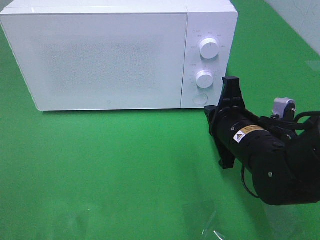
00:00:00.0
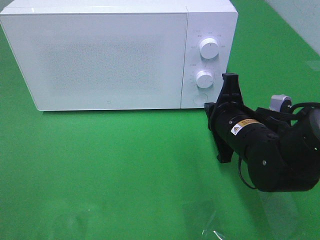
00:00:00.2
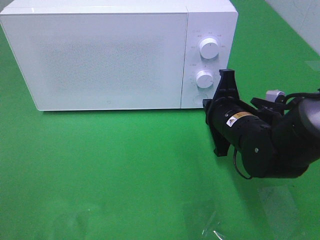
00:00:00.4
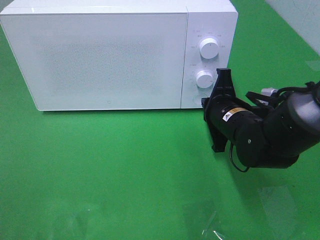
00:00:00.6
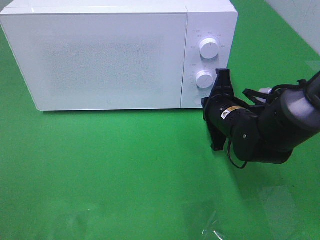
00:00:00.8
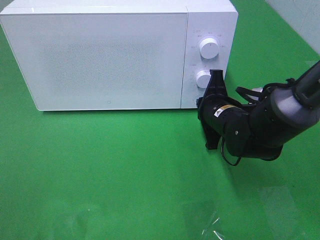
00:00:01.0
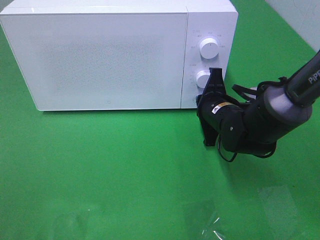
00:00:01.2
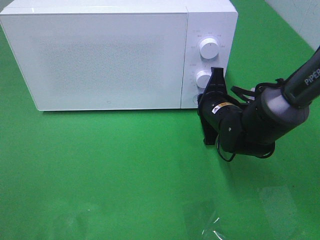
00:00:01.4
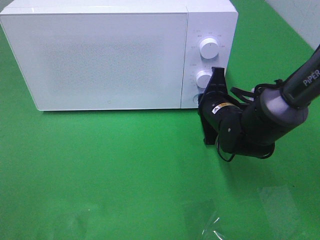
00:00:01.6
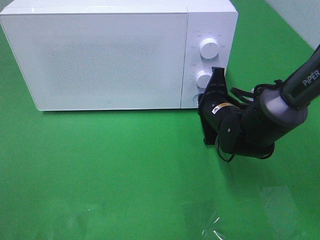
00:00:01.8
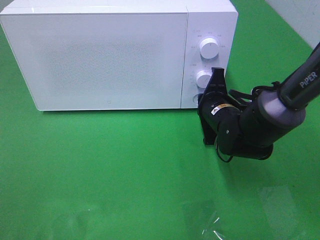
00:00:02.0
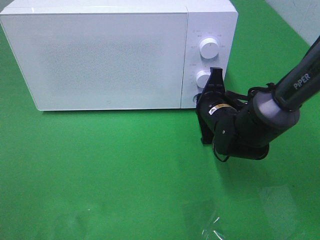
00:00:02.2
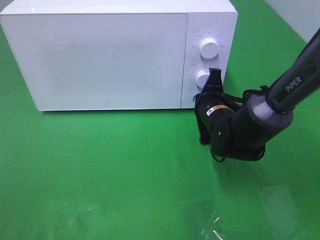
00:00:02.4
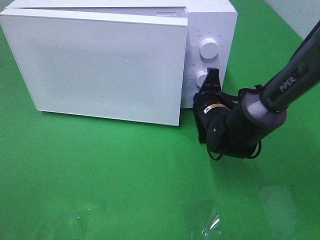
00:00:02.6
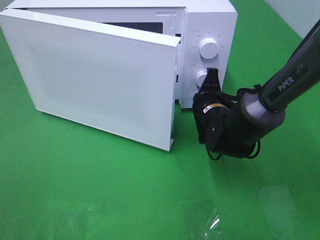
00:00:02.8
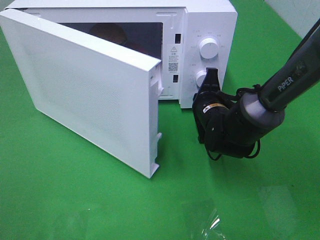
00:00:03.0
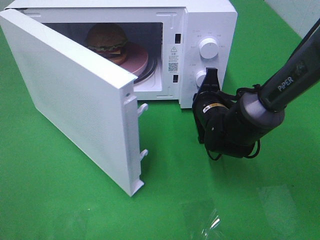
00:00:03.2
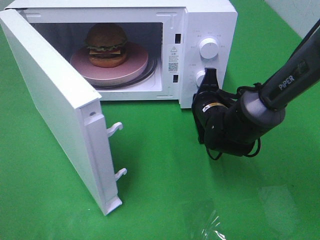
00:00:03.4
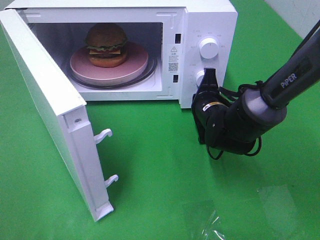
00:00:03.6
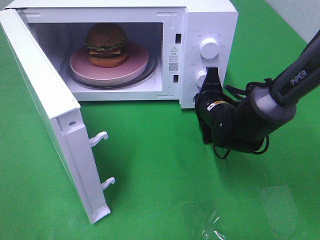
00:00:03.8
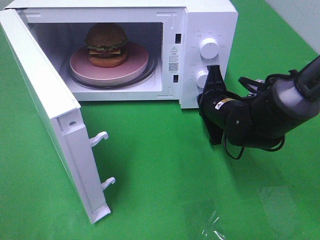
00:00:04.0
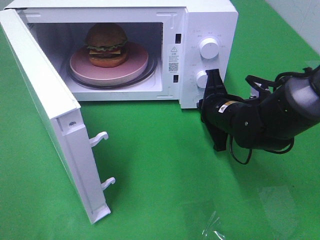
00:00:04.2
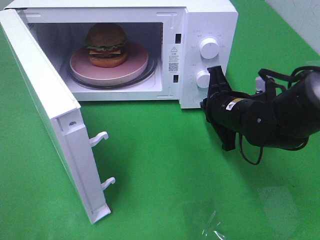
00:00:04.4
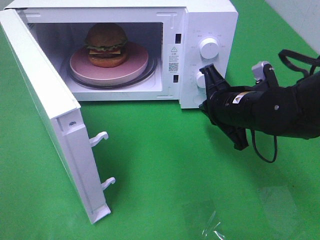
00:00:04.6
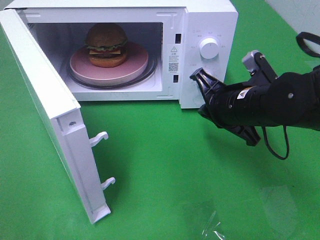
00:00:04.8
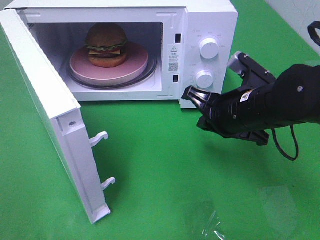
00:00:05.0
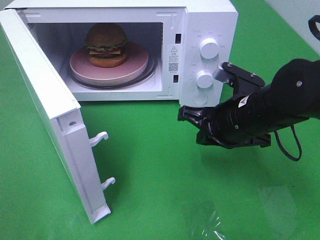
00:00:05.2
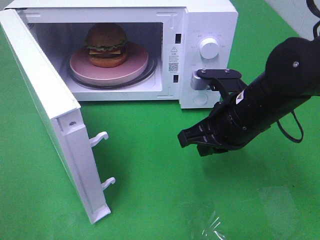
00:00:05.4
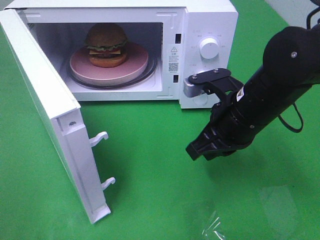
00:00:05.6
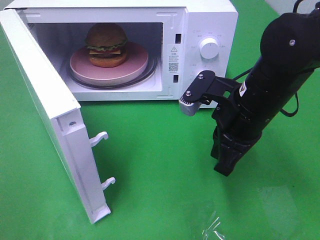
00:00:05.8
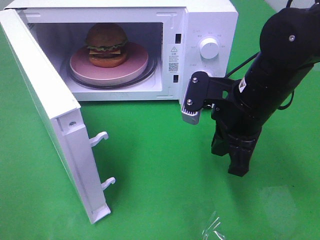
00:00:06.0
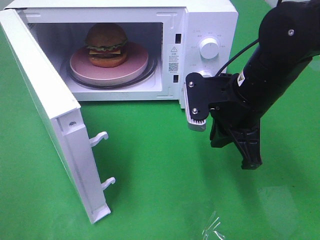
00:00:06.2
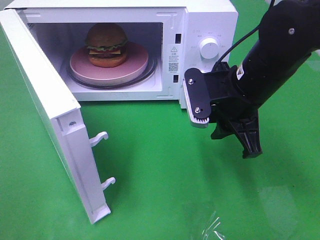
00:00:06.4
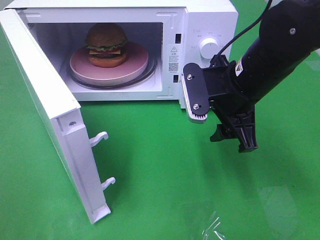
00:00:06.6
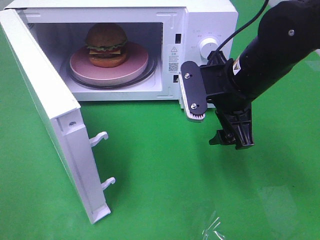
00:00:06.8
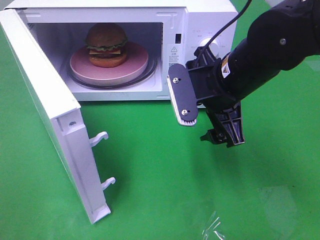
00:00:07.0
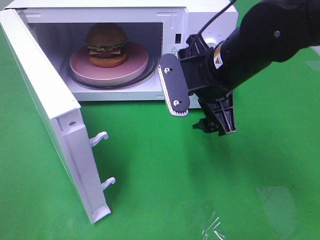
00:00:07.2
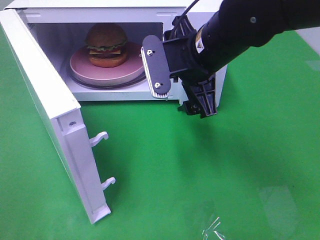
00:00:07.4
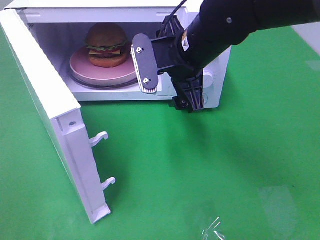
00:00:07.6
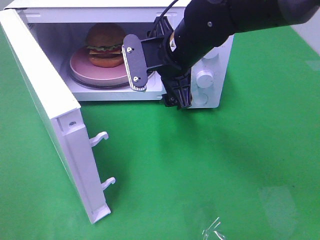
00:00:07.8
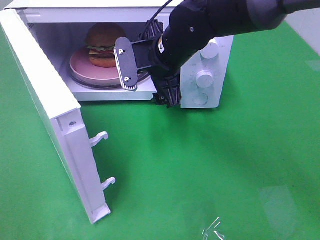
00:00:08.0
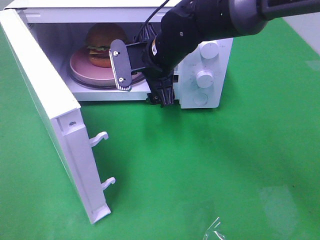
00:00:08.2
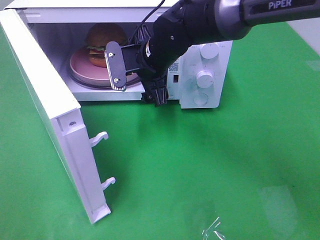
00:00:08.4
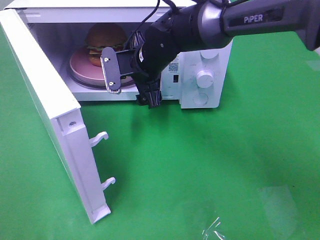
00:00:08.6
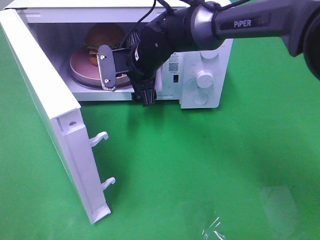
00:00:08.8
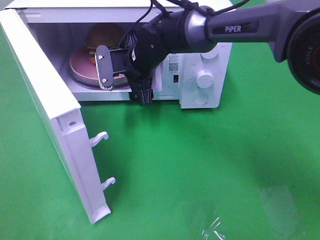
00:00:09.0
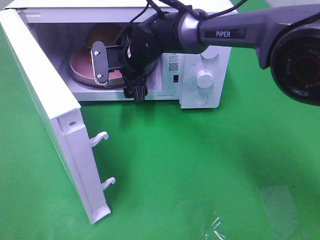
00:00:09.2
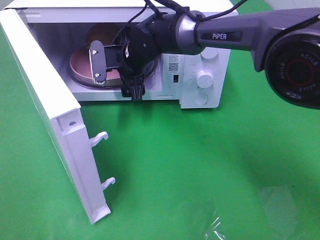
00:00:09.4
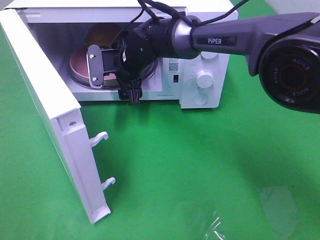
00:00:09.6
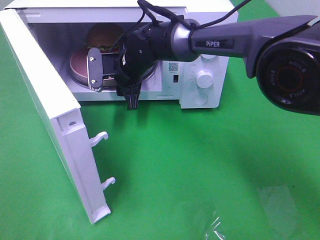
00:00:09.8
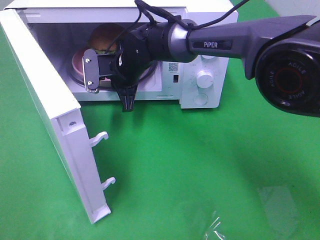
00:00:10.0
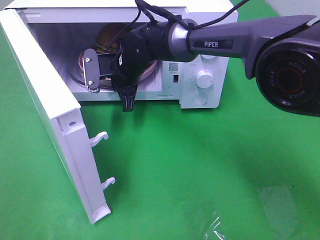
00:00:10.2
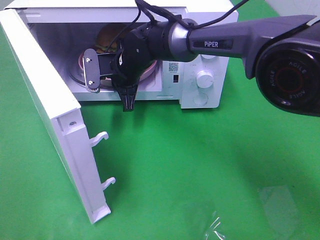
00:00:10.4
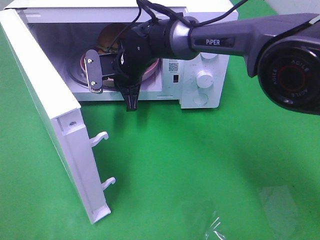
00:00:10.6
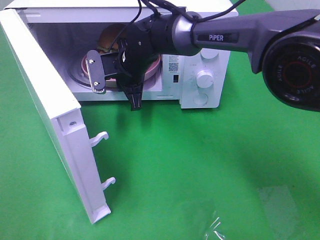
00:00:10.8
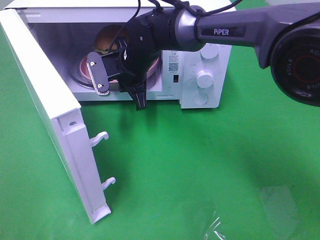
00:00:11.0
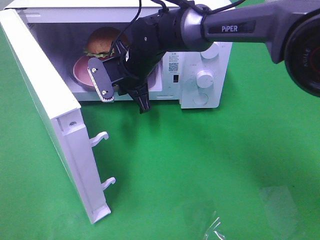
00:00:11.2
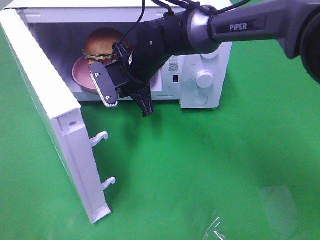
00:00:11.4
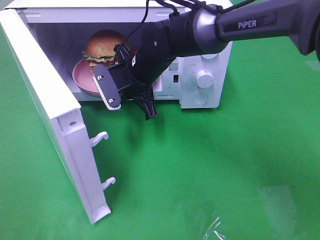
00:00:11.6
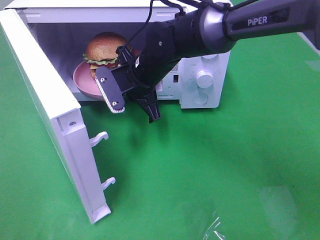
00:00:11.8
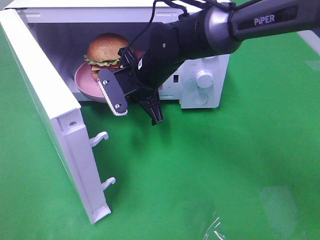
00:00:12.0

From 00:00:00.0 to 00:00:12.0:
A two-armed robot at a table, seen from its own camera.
Task of the whole recording: Heat the burger.
Step, from 00:00:00.0 to 00:00:04.2: Right hand: press the switch.
Step, from 00:00:04.4 to 00:00:10.6: Right hand: grab the plate with the hamburger.
From 00:00:00.0 to 00:00:01.6: The right gripper heads forward, covering roughly 10 cm.
From 00:00:03.0 to 00:00:04.4: The right gripper ends up approximately 5 cm from where it was.
From 00:00:04.4 to 00:00:06.0: The right gripper shifts approximately 5 cm upward.
From 00:00:06.0 to 00:00:07.6: The right gripper shifts roughly 10 cm to the left and forward, and opens.
From 00:00:07.6 to 00:00:09.0: The right gripper is displaced forward, to the left and downward by roughly 15 cm.
From 00:00:09.0 to 00:00:10.4: The right gripper closes up.
From 00:00:10.4 to 00:00:12.0: The right gripper heads backward, covering some 5 cm.

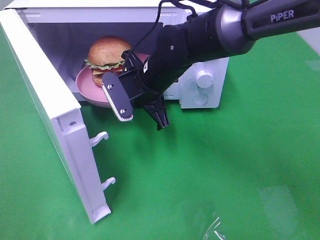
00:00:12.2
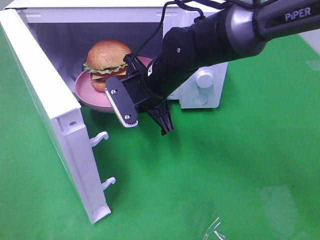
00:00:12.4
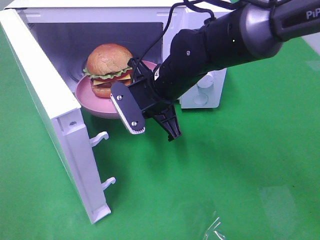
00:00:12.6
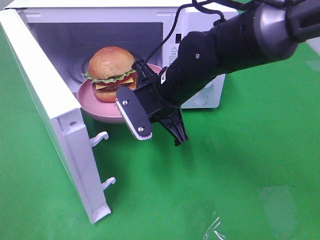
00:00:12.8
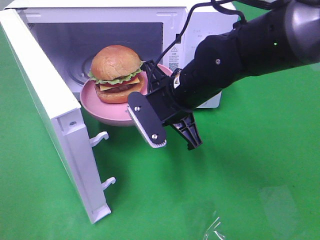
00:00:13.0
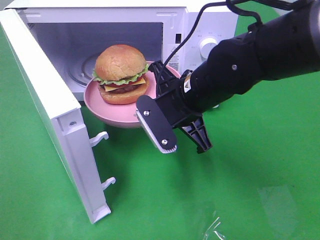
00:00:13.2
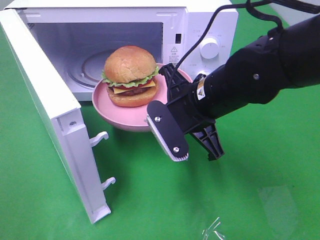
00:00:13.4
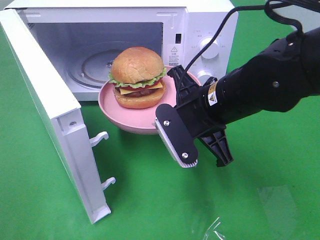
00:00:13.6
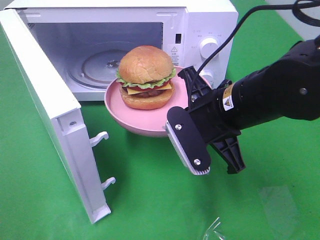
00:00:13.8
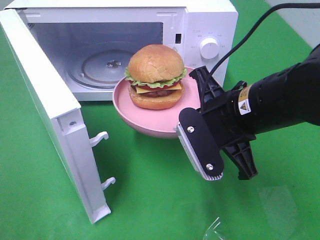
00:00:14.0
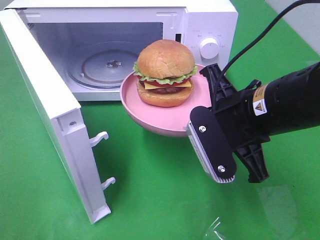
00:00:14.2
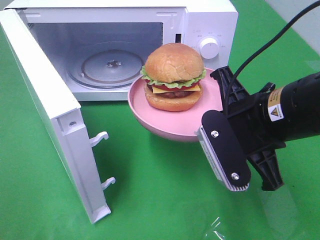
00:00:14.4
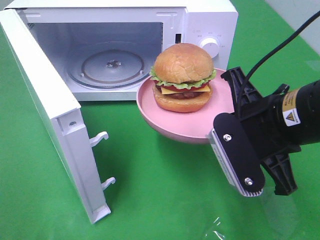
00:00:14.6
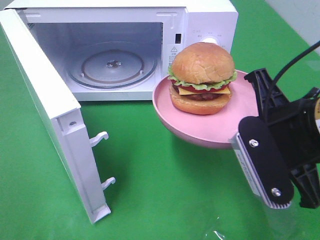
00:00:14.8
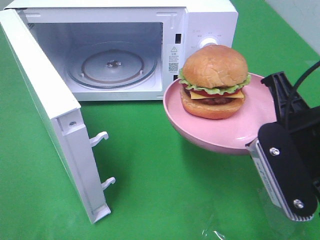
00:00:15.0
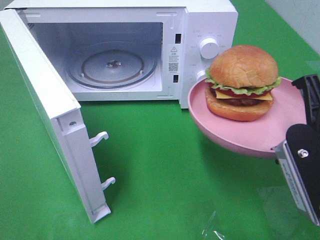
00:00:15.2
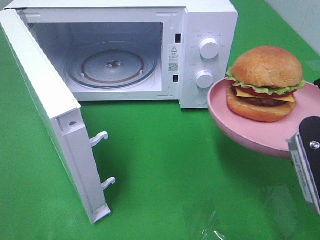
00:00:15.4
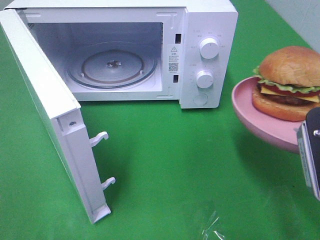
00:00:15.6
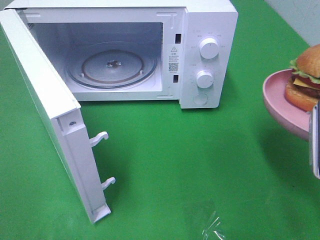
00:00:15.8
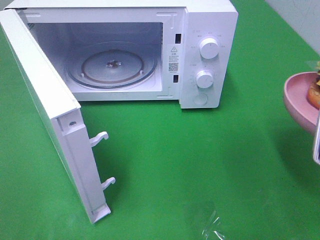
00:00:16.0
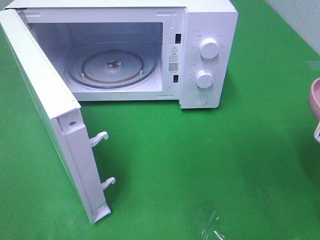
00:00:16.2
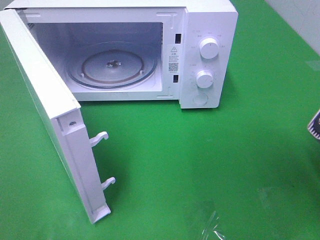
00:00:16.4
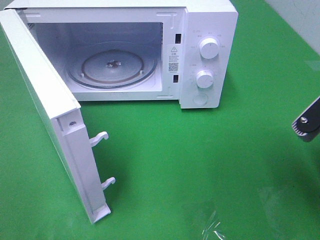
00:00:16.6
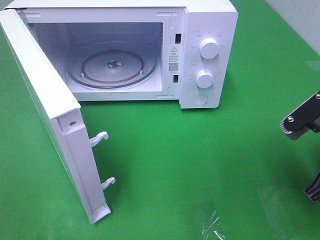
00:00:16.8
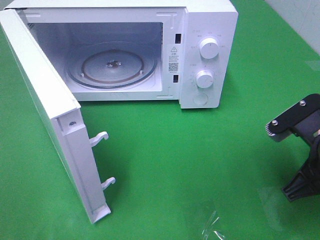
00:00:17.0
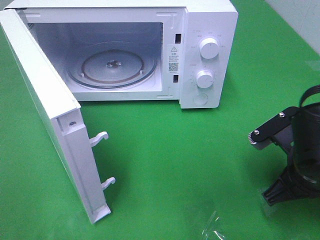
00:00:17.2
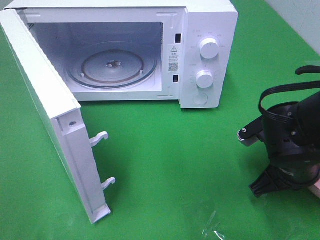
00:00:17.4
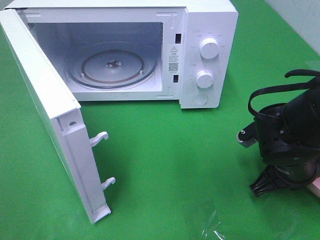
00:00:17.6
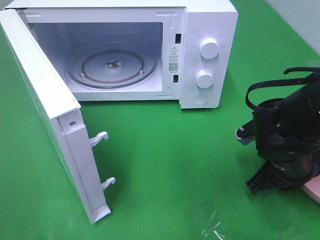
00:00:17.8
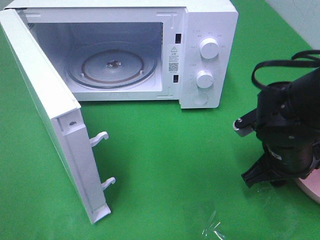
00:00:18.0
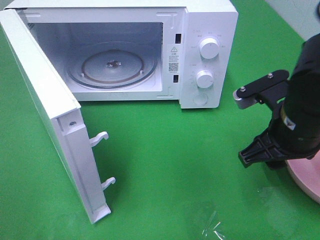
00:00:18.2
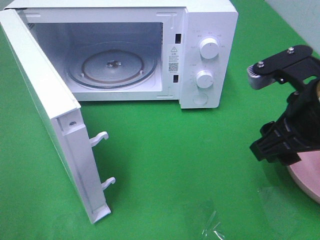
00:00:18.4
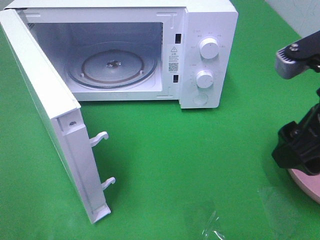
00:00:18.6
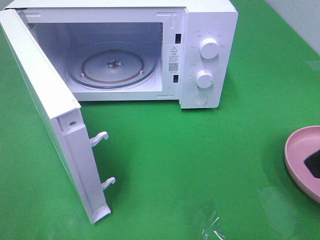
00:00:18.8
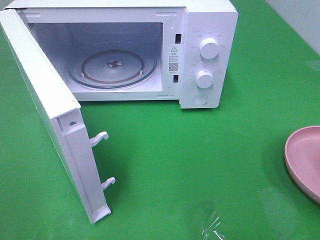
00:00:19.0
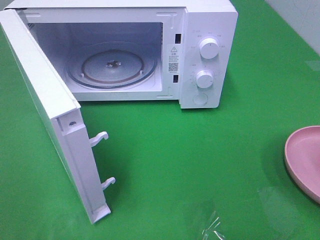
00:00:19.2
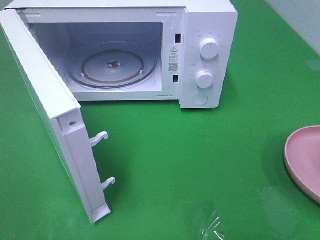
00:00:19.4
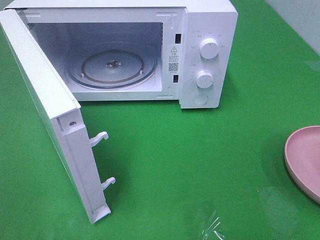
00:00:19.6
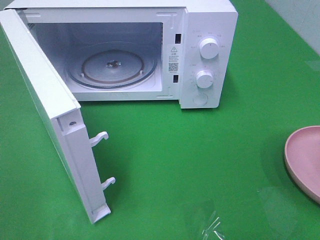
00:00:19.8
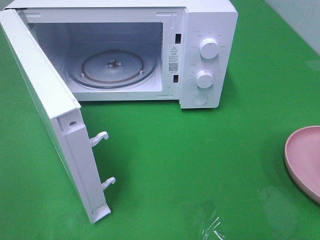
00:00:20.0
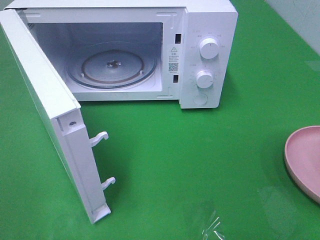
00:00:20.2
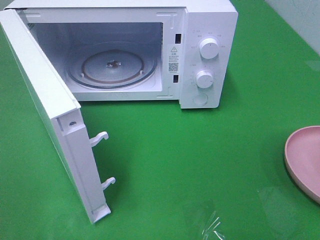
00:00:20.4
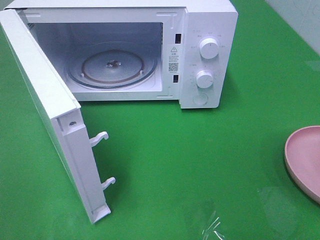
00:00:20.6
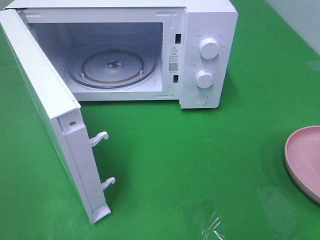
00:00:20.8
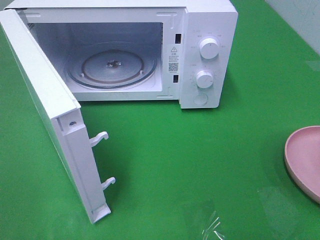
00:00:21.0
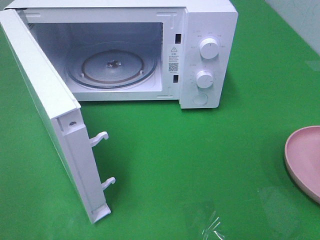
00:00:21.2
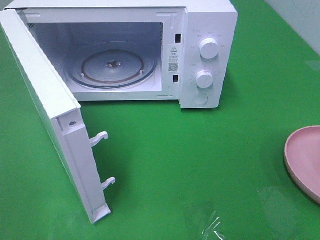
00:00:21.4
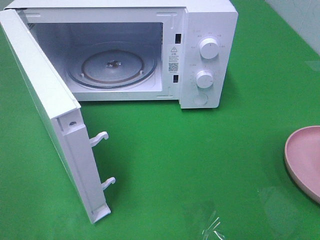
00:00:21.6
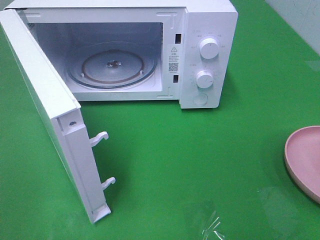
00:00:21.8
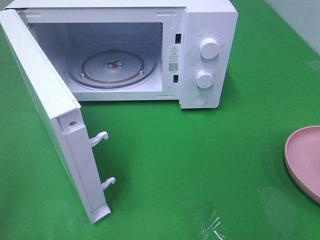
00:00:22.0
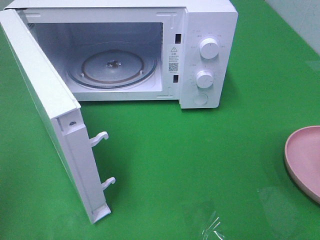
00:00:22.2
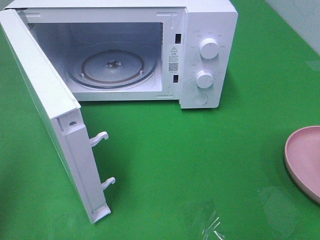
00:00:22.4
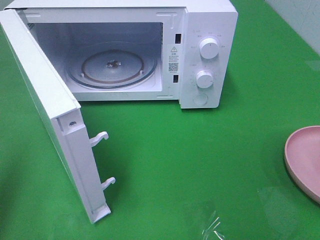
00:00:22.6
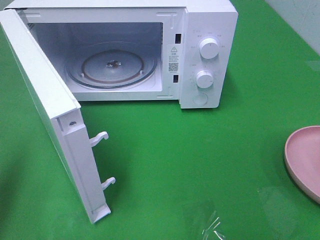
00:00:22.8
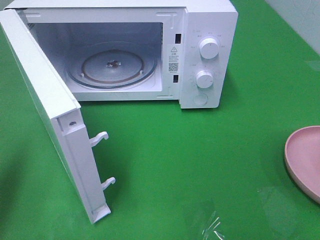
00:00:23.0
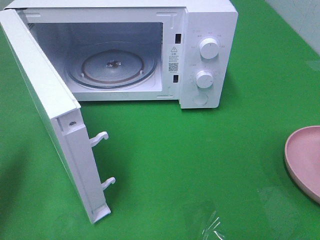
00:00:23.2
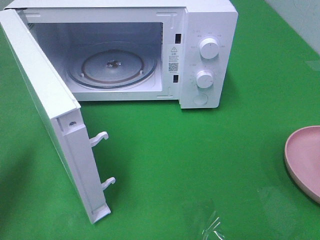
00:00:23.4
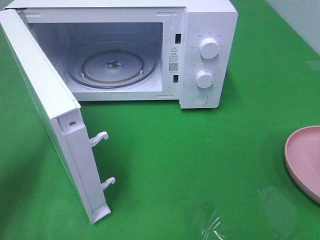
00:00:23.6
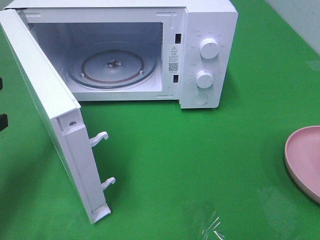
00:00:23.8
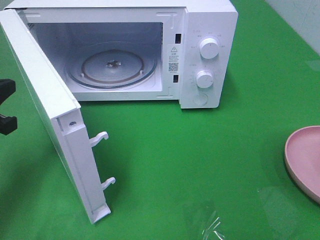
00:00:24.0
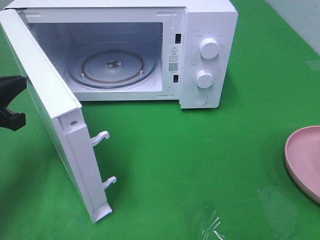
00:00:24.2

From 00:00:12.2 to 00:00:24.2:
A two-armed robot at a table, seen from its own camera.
Task of the whole recording: Heat the burger.
Step, from 00:00:12.2 to 00:00:18.2: Right hand: place the plate on the table.
From 00:00:12.2 to 00:00:13.8: The right gripper travels backward and to the right by roughly 15 cm.
From 00:00:13.8 to 00:00:15.2: The right gripper travels to the right and backward by roughly 15 cm.
From 00:00:16.6 to 00:00:18.2: The right gripper travels forward and to the left by some 10 cm, reaches about 10 cm downward, then returns, and opens up.
From 00:00:18.2 to 00:00:19.8: The right gripper heads backward, to the right and upward, covering approximately 25 cm.
From 00:00:19.8 to 00:00:21.2: The two grippers keep their place.
From 00:00:21.2 to 00:00:22.6: The left gripper travels forward by some 10 cm, and closes its fingers.
From 00:00:22.6 to 00:00:24.2: The left gripper travels forward and downward by some 15 cm.
